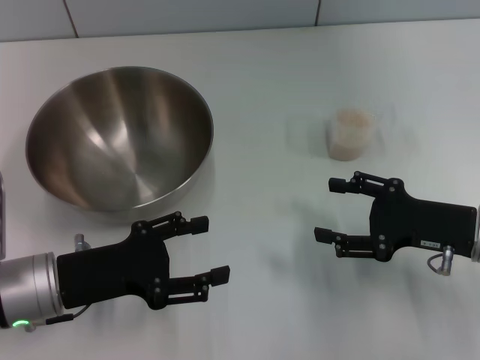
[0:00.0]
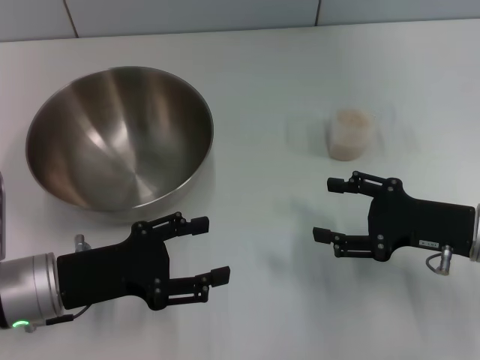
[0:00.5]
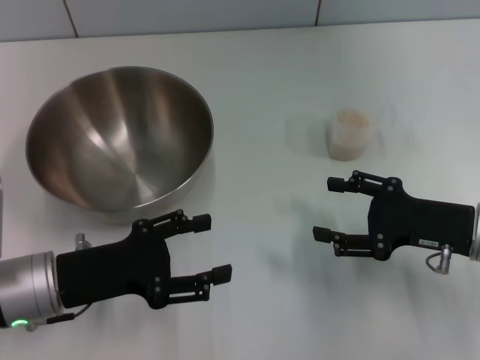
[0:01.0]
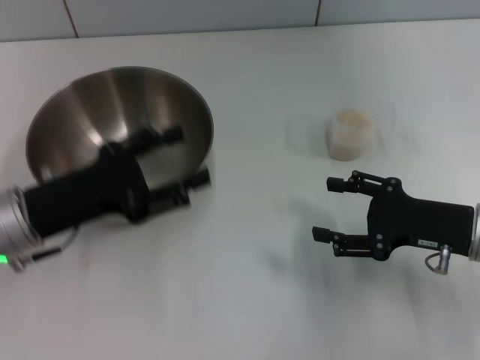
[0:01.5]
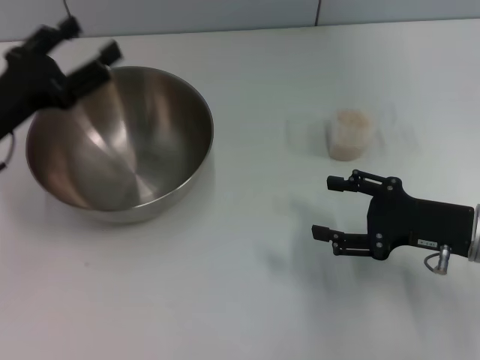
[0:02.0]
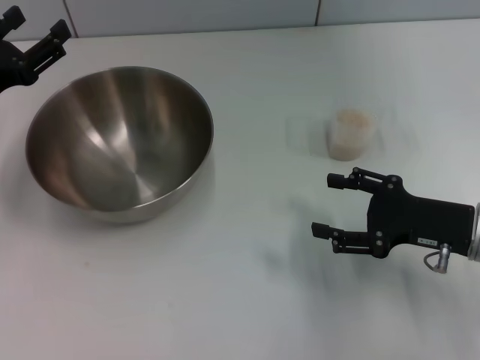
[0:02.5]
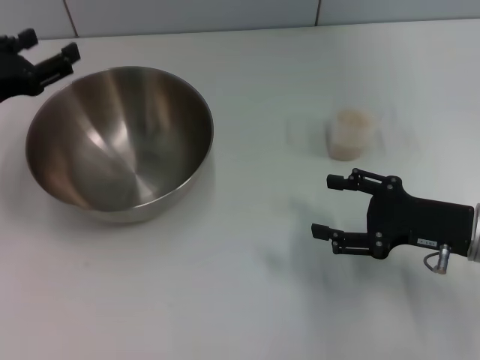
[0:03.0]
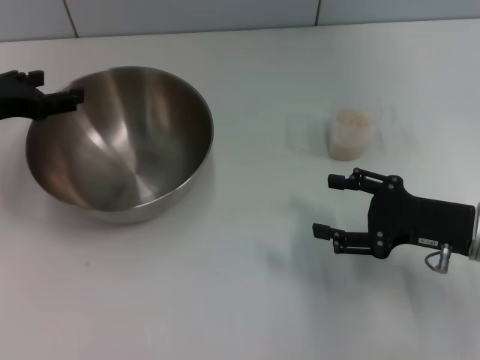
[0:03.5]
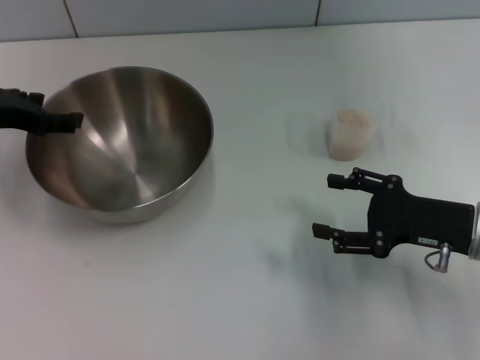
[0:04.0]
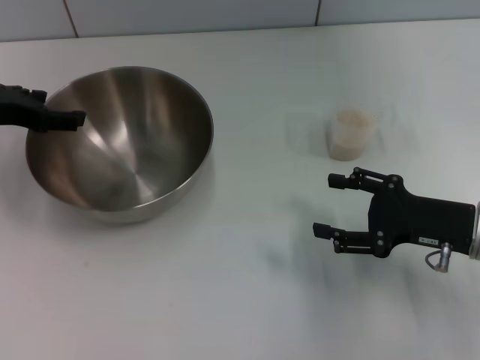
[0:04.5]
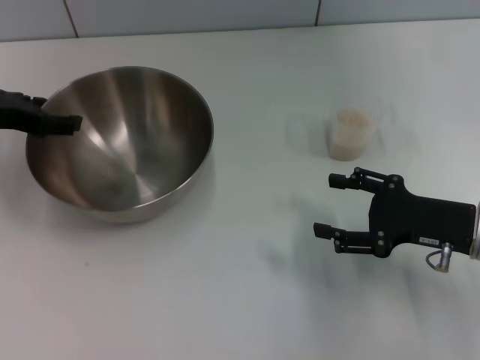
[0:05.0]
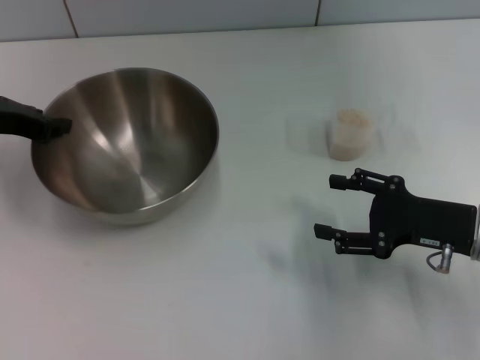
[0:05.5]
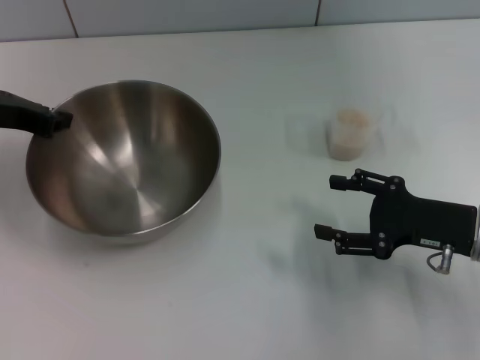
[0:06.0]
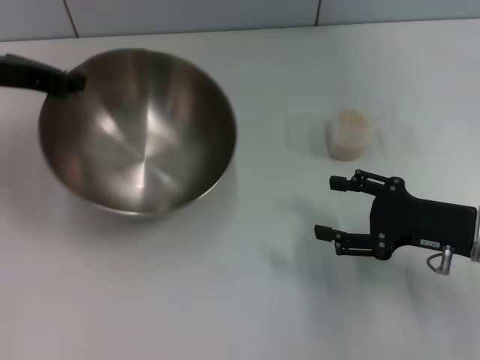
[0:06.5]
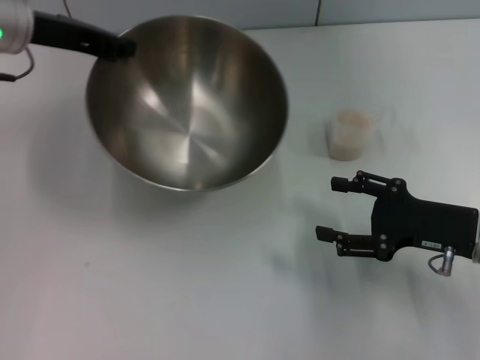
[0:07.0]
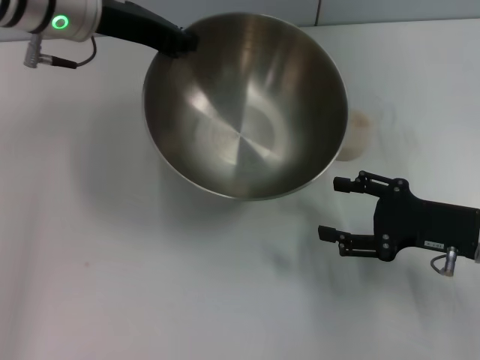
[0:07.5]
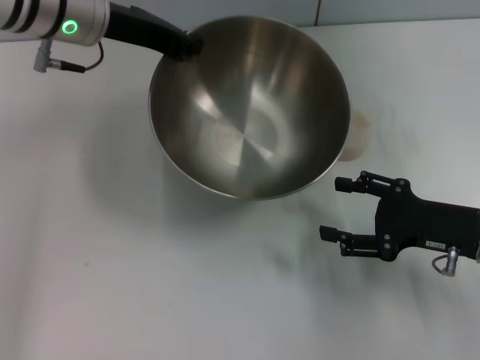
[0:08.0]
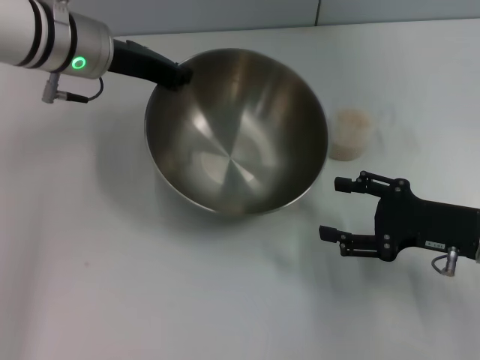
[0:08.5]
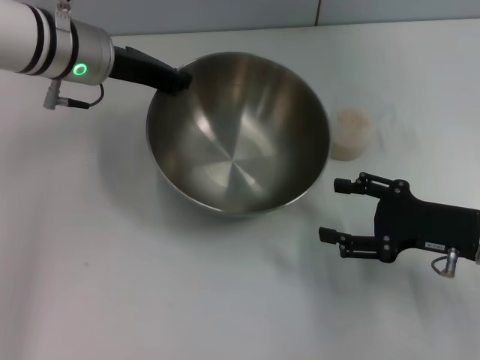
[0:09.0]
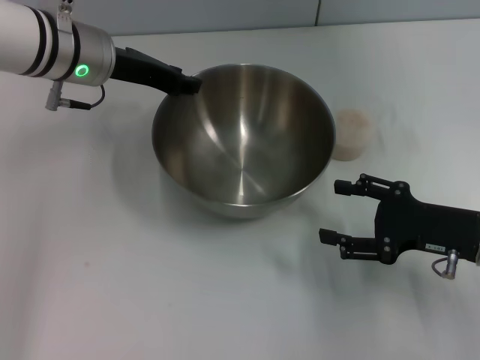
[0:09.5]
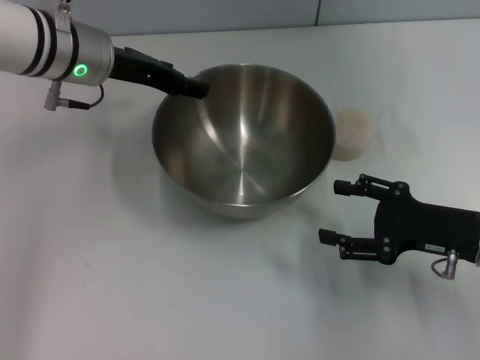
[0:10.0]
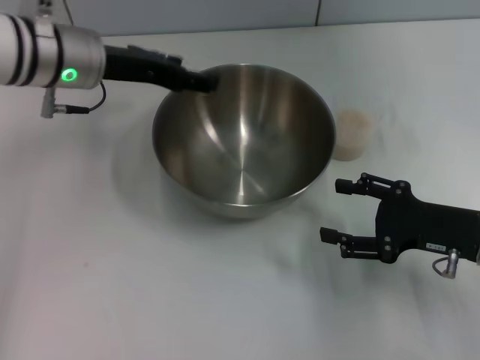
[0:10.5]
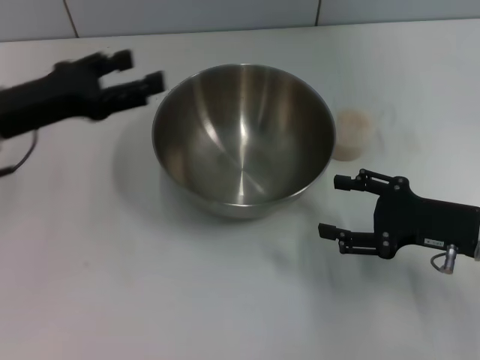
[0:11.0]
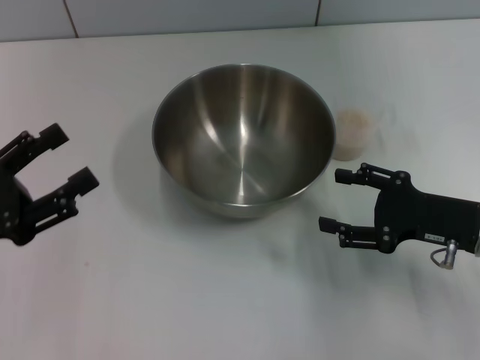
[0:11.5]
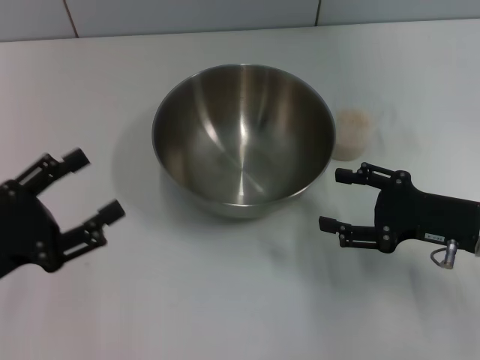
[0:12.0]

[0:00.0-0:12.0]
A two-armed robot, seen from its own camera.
Task of the whole recording: Place the bowl in the middle of the table with one hand and pour the rice from the grain cup into it with the other hand.
Step, 0:00.0 to 0:05.5: Pick up the bowl with the left gripper.
Step, 0:06.0 to 0:10.5: Place the bowl in the center of view with the left gripper.
0:00.0 to 0:02.0: The left gripper heads forward and upward, covering some 10 cm.
0:02.0 to 0:04.0: The left gripper shifts some 5 cm forward.
0:04.0 to 0:06.0: The left gripper closes its fingers.
0:06.0 to 0:08.0: The left gripper is displaced to the right and upward by some 15 cm.
0:08.0 to 0:10.0: The left gripper shifts roughly 5 cm downward, and opens up.
0:10.0 to 0:12.0: The left gripper shifts some 25 cm backward and to the left.

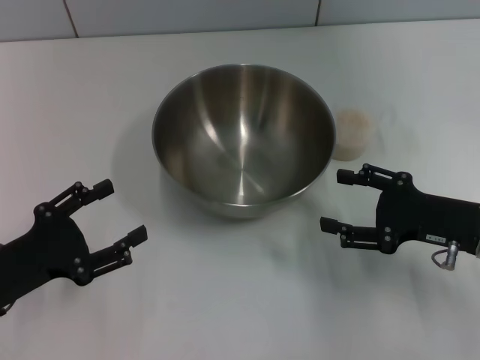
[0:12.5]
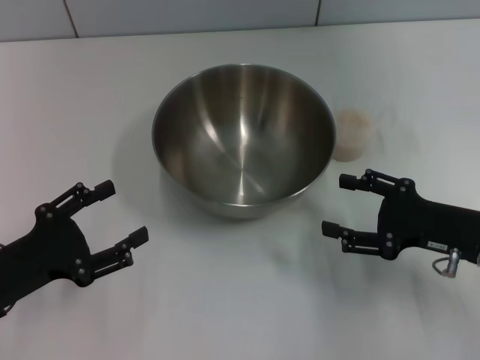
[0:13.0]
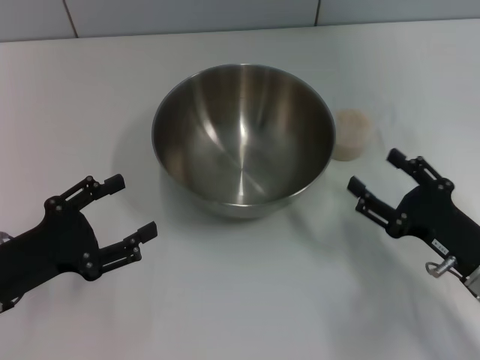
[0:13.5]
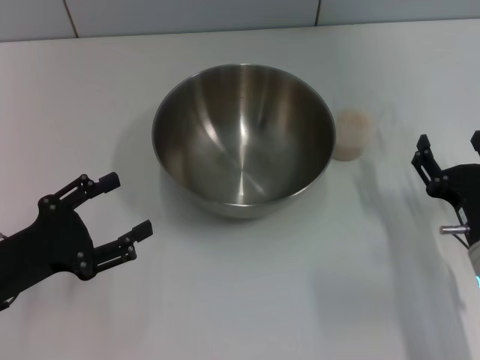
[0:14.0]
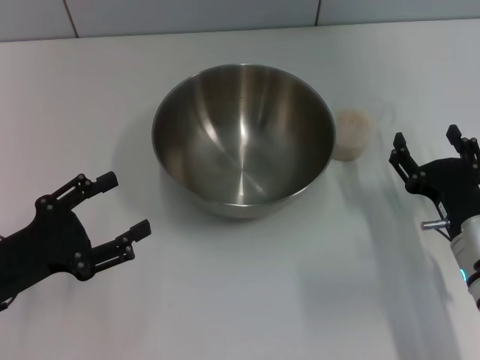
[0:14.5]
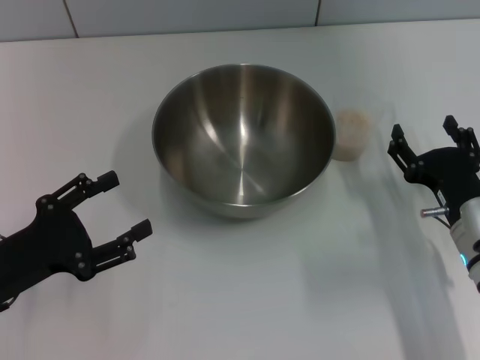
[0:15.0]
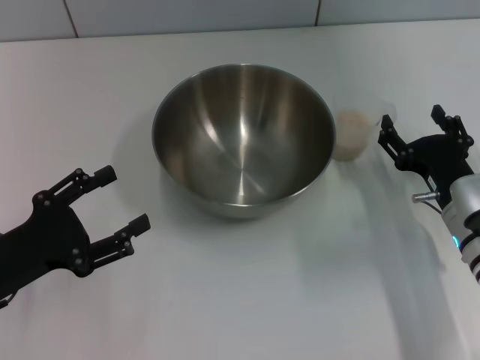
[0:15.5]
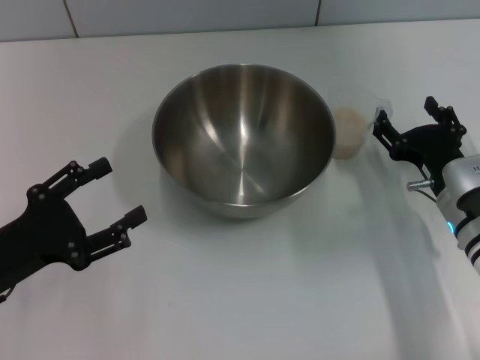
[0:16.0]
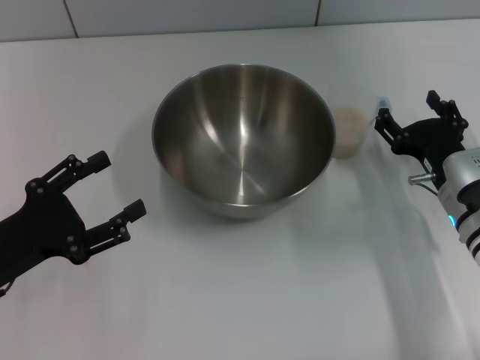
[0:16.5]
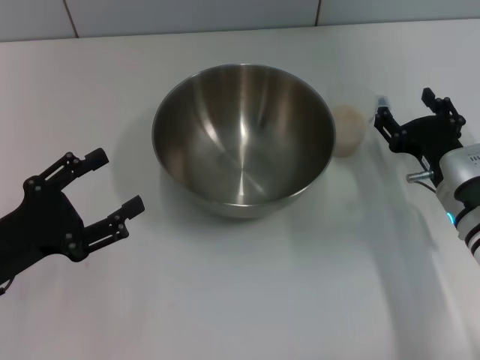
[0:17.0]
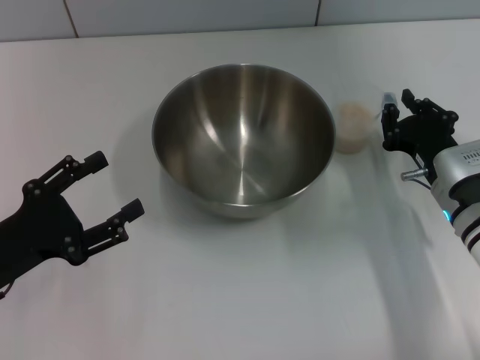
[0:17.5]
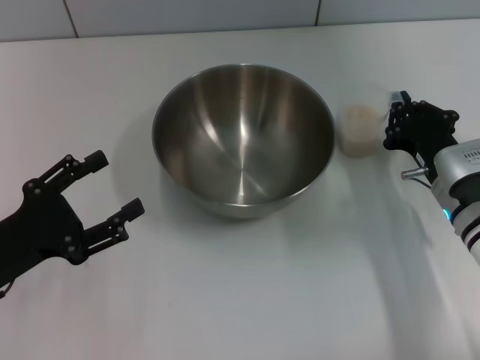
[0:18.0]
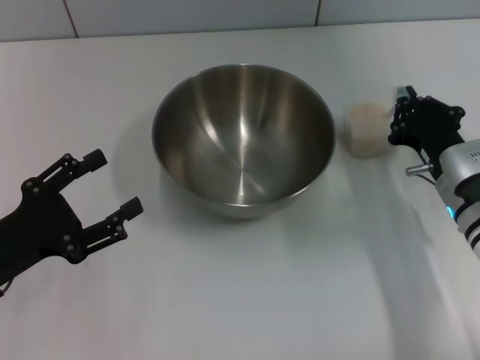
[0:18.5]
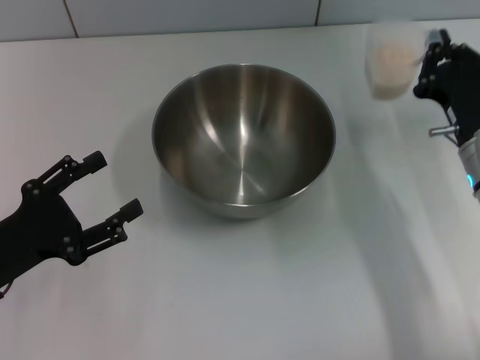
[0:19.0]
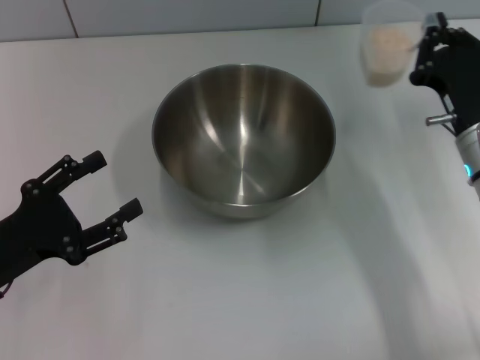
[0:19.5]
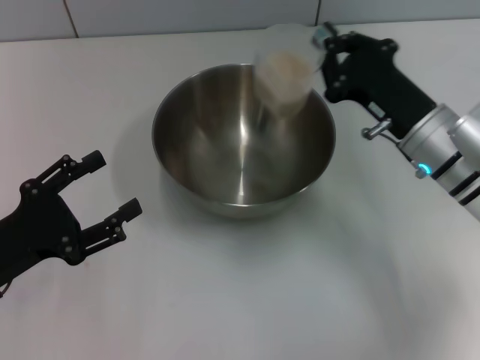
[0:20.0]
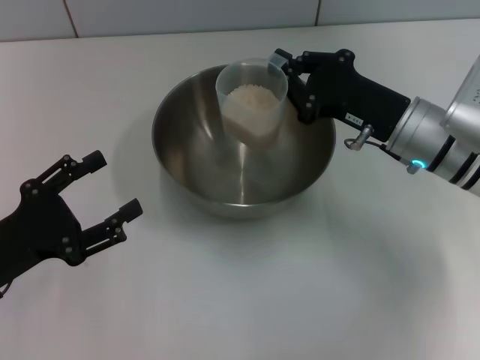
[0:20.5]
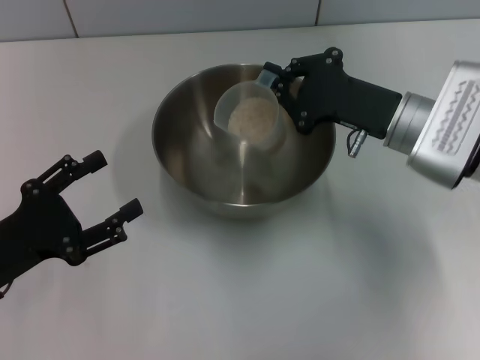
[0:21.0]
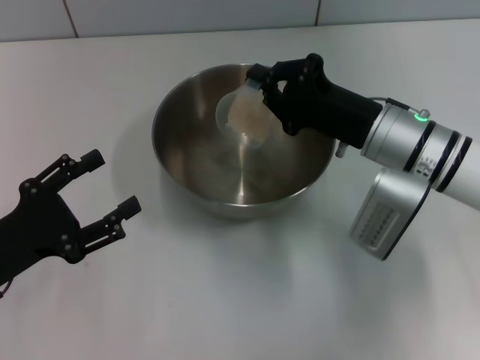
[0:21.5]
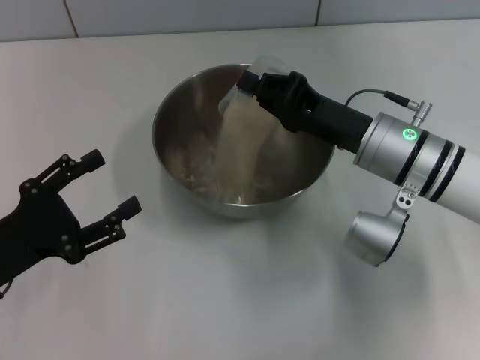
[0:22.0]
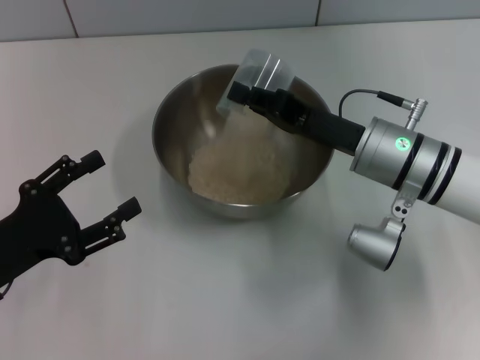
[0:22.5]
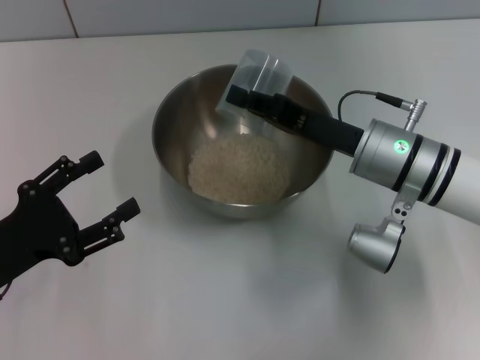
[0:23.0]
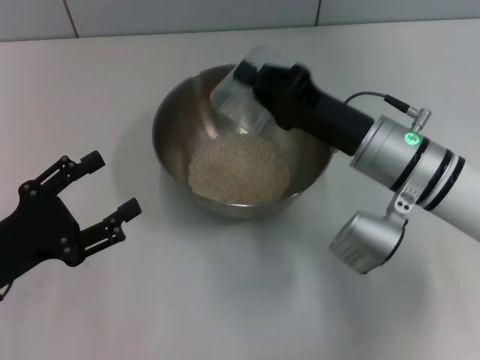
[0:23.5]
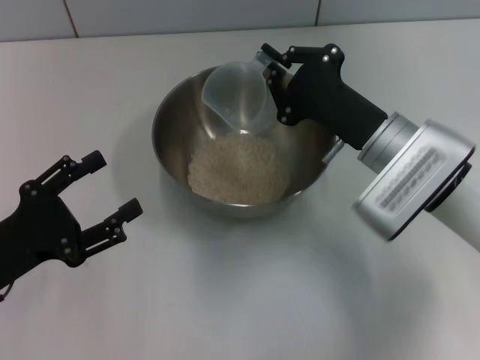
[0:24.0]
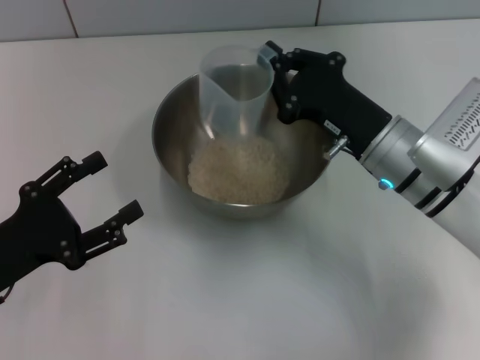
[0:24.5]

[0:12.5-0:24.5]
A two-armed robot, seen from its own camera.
Task of the whole recording: Place the bowl in the middle of the table with one hand and pour the rice from the grain cup into it with the other hand.
Step, 0:12.5 to 0:19.0: Pick up the cup with rice in it with the right gripper.
0:12.5 to 0:14.5: The right gripper ends up about 5 cm from where it was.
0:14.5 to 0:16.5: The right gripper goes approximately 5 cm forward.
0:16.5 to 0:18.5: The right gripper closes up.
0:18.5 to 0:20.5: The right gripper moves upward, some 5 cm.

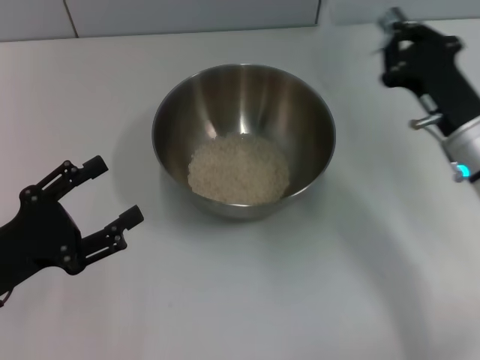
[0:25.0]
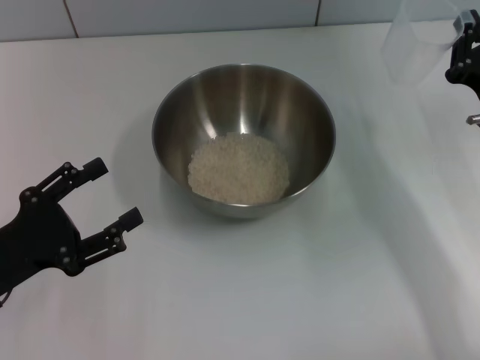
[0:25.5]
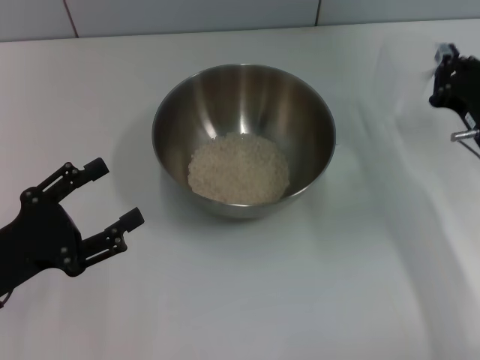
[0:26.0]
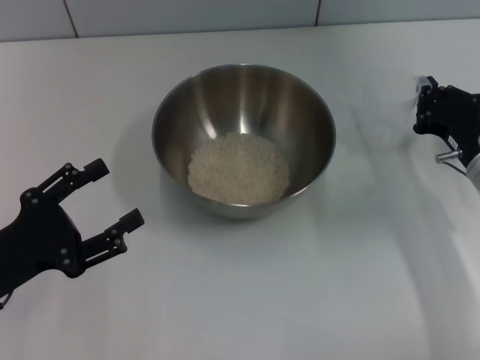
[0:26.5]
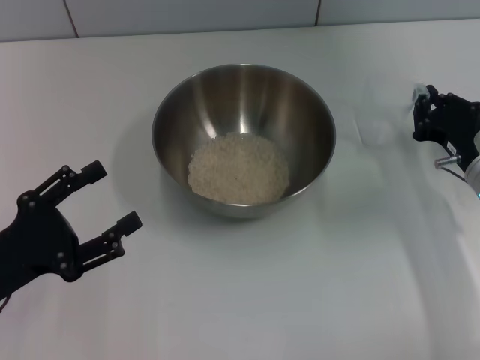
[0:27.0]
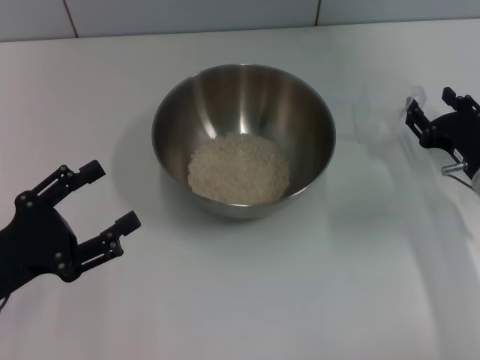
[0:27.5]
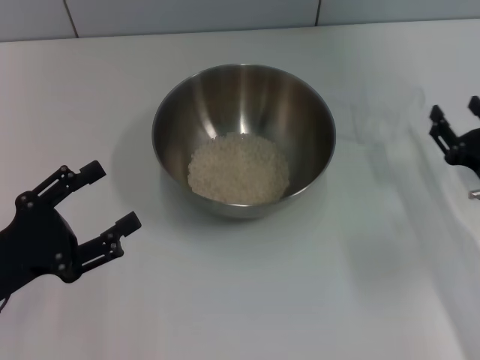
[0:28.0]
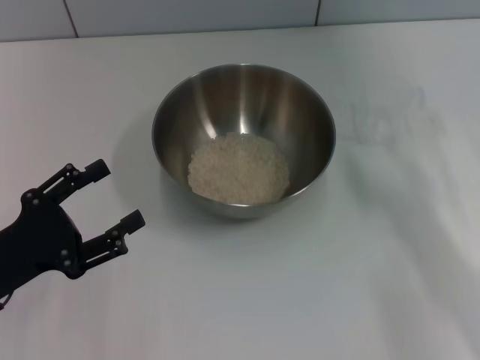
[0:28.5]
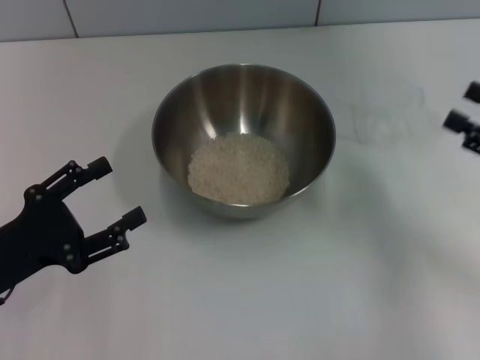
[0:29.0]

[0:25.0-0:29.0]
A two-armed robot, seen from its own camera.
Task of the whole recording: Place the bowl in the middle of the table with one hand and pour the rice from the grain cup into it with the other hand.
0:25.0 to 0:27.0: The right gripper ends up approximately 5 cm from where it was.
0:27.0 to 0:29.0: The right gripper shifts roughly 15 cm to the right, upward and backward, and opens up.
